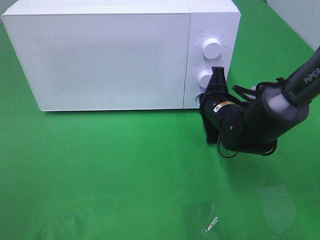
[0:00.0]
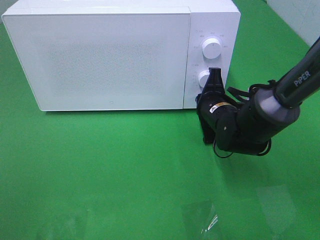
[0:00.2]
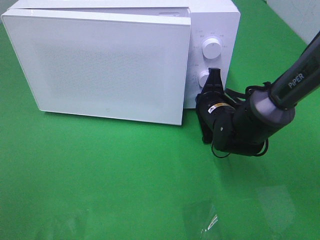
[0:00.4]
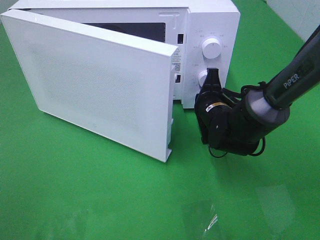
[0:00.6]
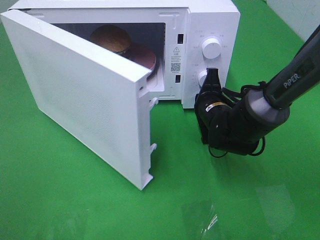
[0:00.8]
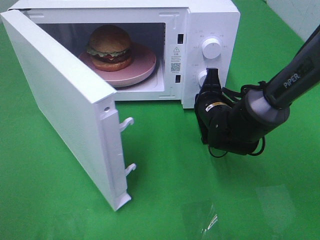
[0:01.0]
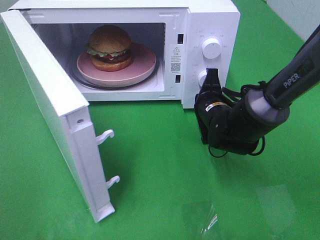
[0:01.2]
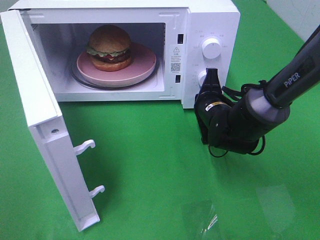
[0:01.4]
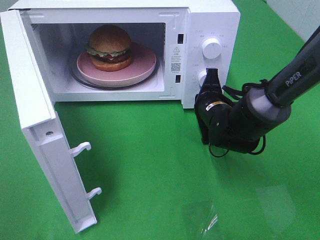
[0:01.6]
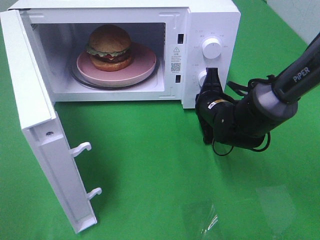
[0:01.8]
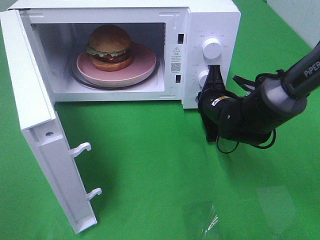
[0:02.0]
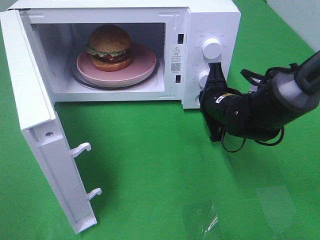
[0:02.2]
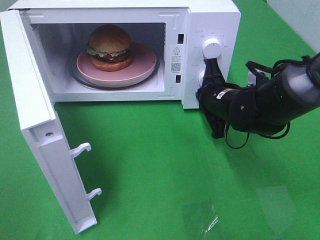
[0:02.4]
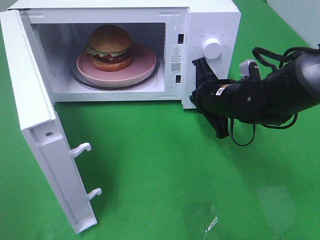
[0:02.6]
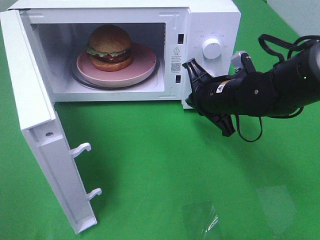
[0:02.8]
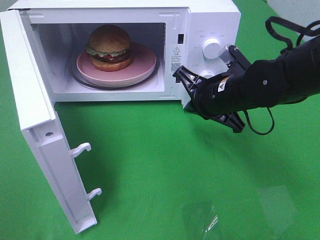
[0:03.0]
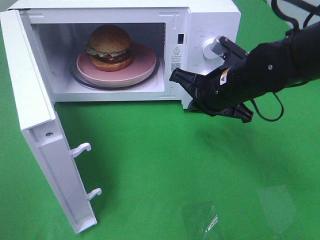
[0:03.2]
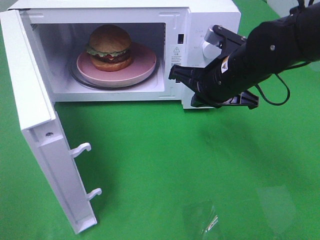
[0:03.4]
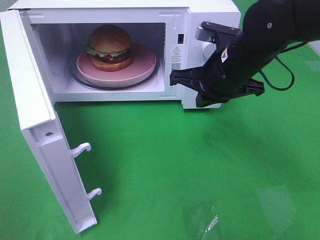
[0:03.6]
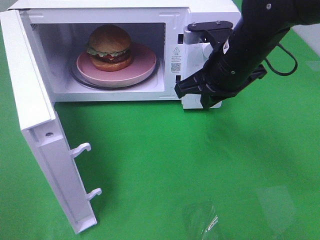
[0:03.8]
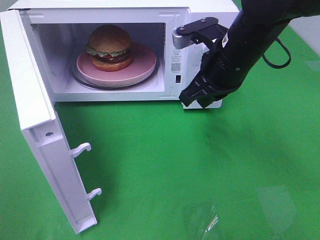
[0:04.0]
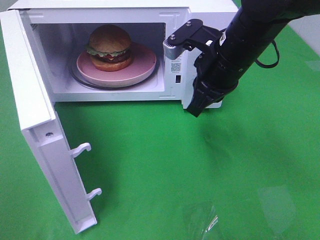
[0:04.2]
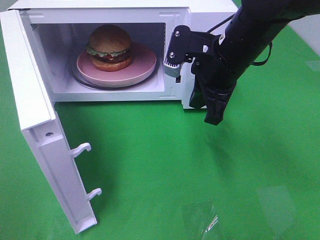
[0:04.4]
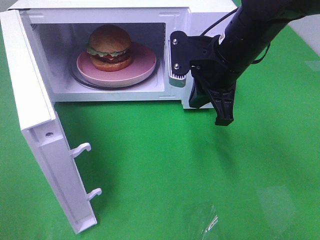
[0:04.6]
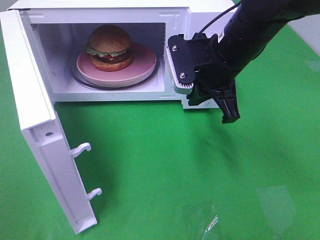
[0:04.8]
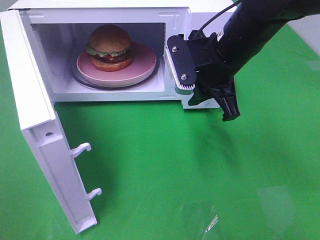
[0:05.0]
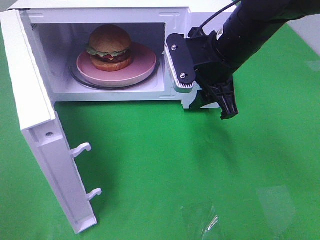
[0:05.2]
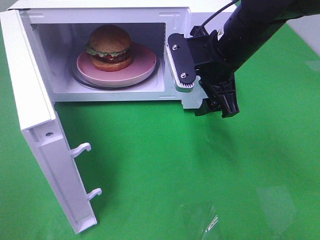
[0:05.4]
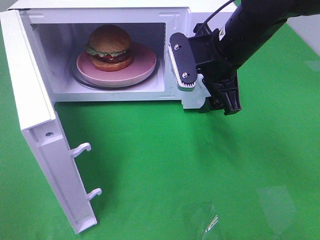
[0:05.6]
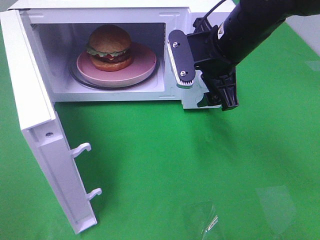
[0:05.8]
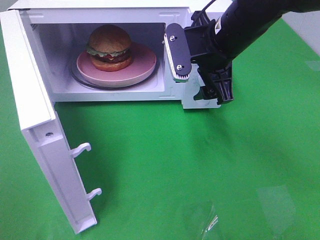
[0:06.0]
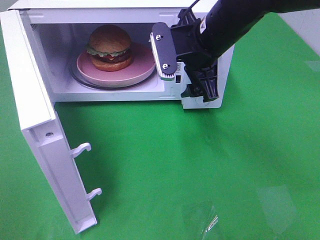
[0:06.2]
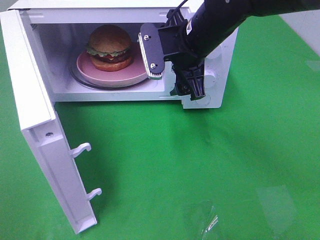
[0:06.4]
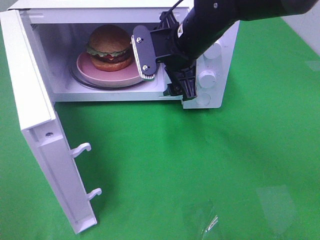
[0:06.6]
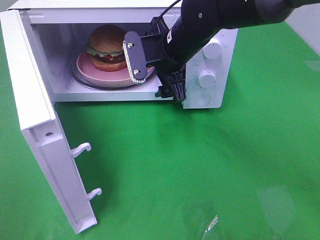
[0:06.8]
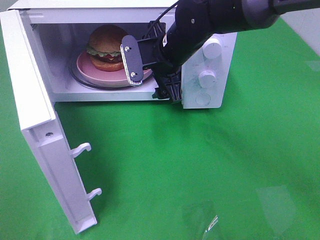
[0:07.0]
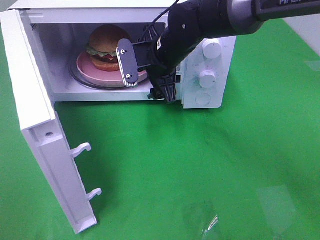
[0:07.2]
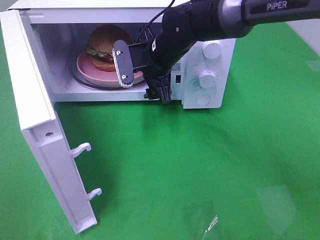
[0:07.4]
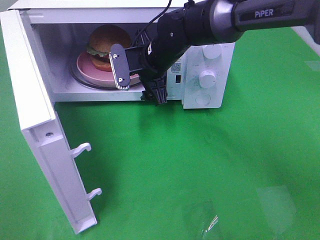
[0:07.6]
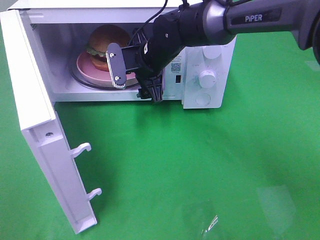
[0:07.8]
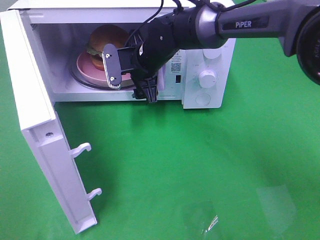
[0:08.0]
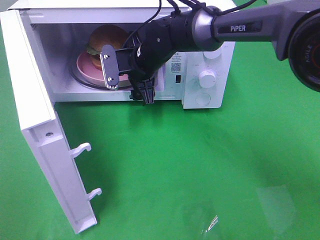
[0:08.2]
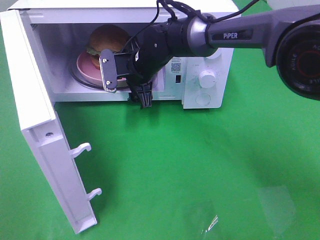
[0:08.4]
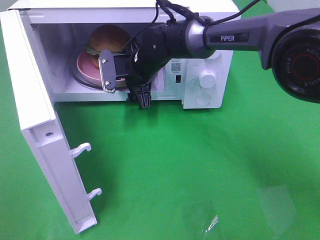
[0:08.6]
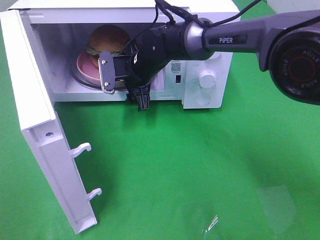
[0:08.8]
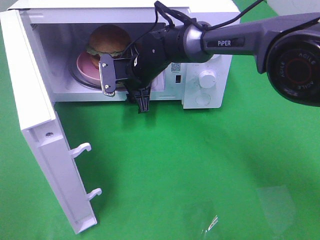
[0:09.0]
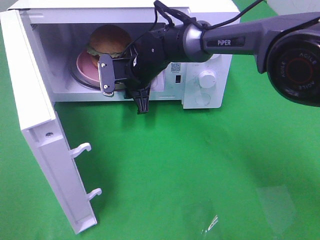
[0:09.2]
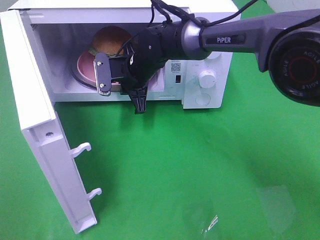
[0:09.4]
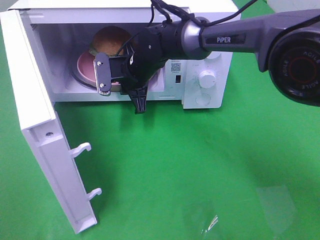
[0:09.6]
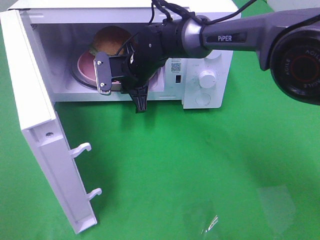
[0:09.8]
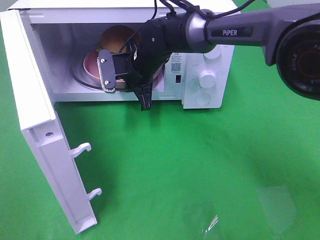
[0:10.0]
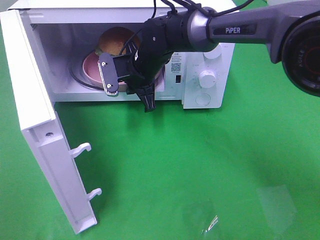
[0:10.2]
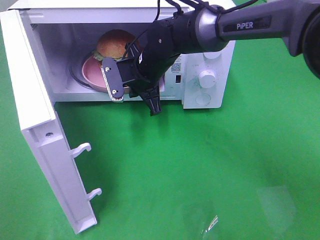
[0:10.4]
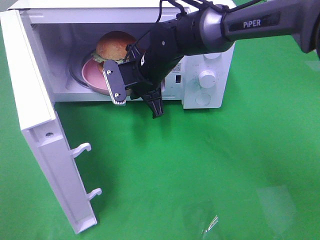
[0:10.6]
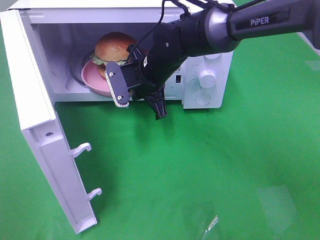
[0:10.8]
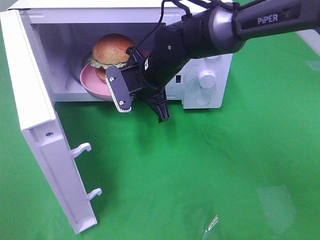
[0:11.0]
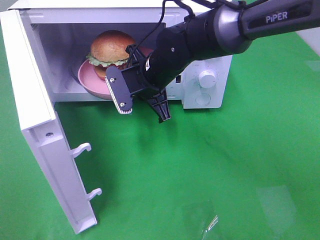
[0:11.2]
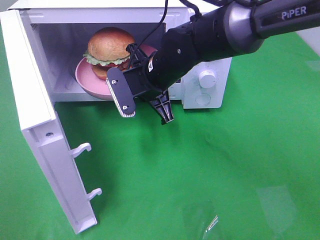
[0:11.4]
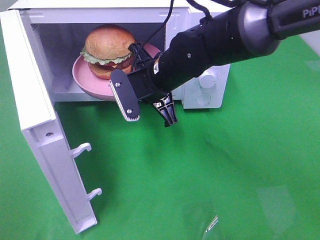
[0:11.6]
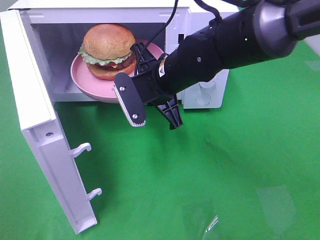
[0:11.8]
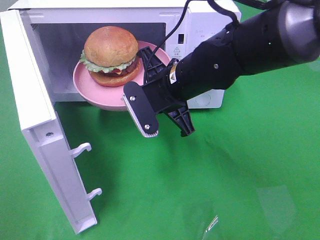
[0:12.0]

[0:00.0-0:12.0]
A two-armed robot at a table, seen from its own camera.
Task of the whole recording: Heat the burger.
Step, 0:00.0 to 0:09.2: Right hand: grab the plate with the hamburger.
0:01.6 to 0:03.0: The right gripper travels upward by approximately 5 cm.
0:03.0 to 0:04.4: The right gripper goes some 5 cm upward.
0:04.4 to 0:06.0: The right gripper opens up.
0:06.0 to 0:07.6: The right gripper travels to the left, forward and downward by approximately 15 cm.
0:07.6 to 0:09.0: The right gripper changes place by about 5 cm.
0:09.0 to 0:10.4: The right gripper closes its fingers.
0:10.4 to 0:12.0: The right gripper goes approximately 10 cm backward and to the right.

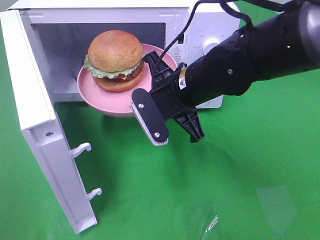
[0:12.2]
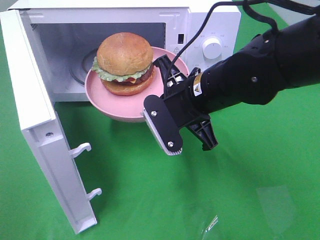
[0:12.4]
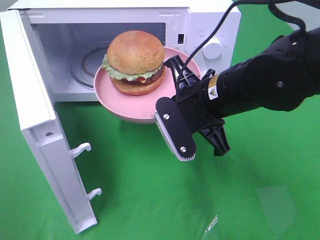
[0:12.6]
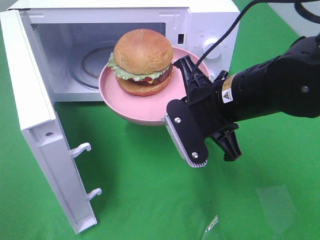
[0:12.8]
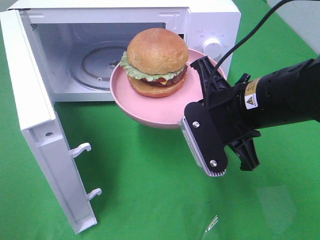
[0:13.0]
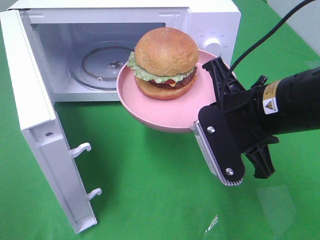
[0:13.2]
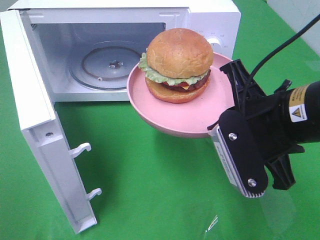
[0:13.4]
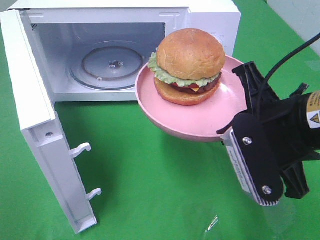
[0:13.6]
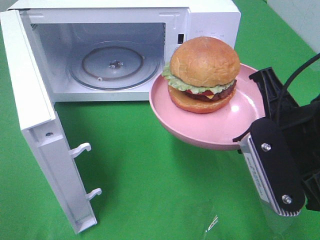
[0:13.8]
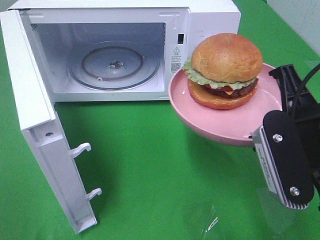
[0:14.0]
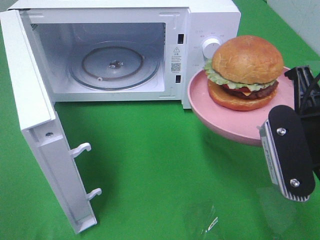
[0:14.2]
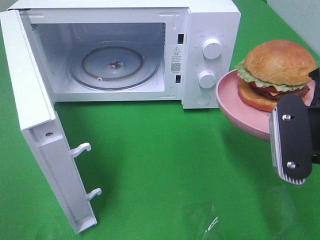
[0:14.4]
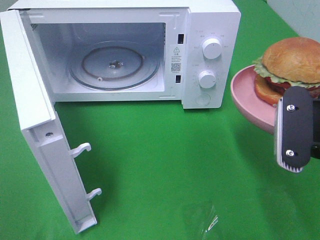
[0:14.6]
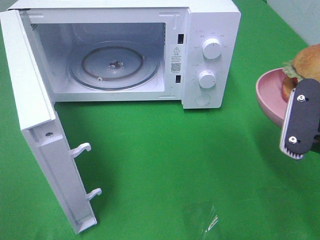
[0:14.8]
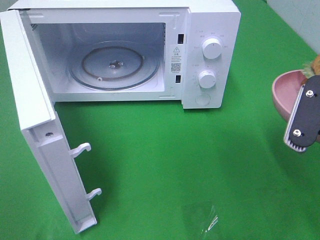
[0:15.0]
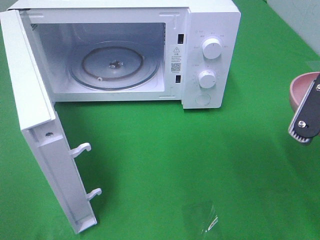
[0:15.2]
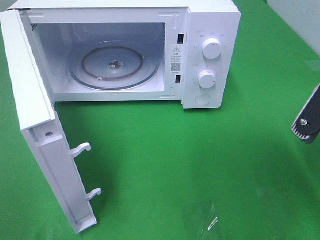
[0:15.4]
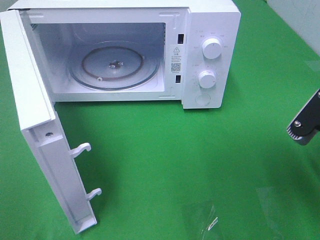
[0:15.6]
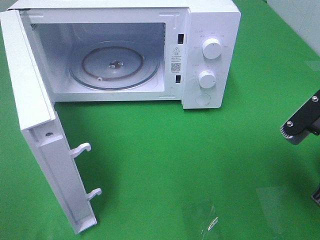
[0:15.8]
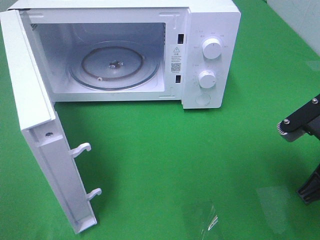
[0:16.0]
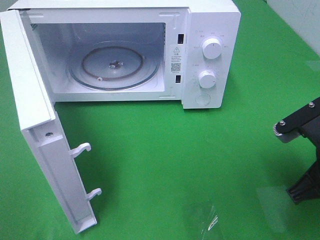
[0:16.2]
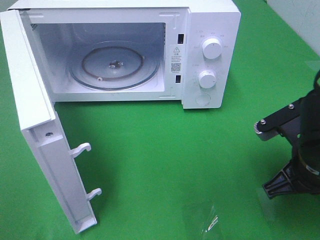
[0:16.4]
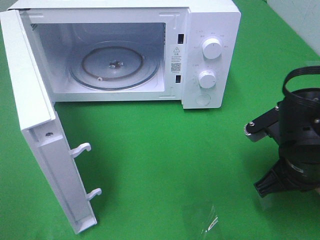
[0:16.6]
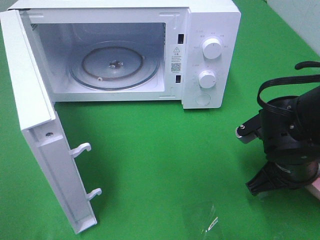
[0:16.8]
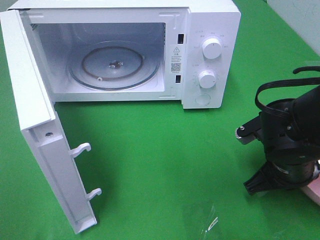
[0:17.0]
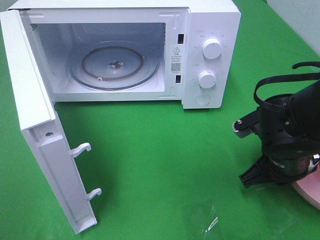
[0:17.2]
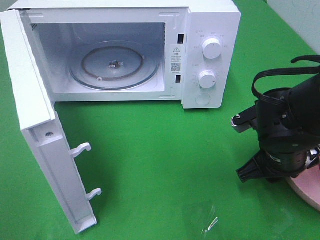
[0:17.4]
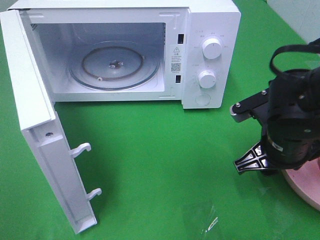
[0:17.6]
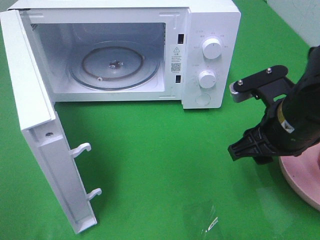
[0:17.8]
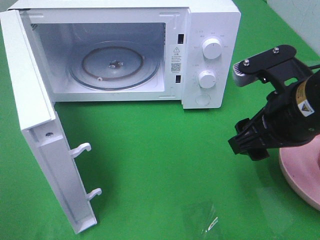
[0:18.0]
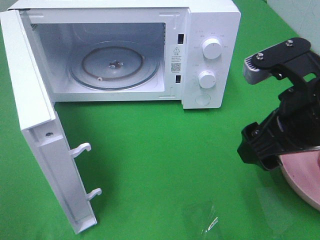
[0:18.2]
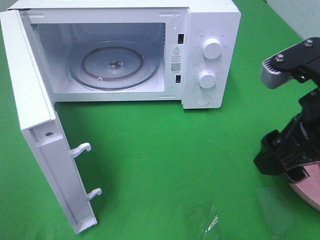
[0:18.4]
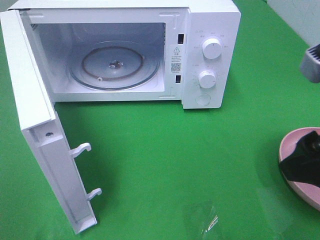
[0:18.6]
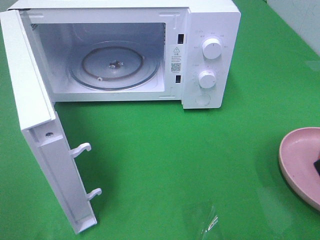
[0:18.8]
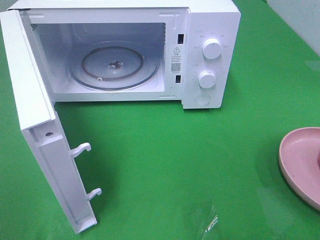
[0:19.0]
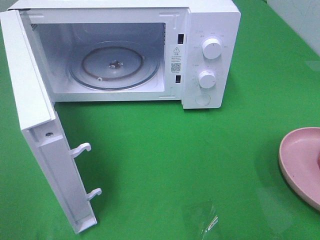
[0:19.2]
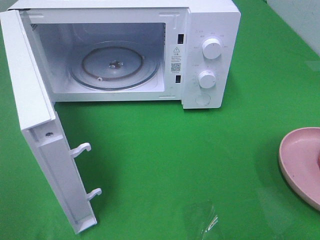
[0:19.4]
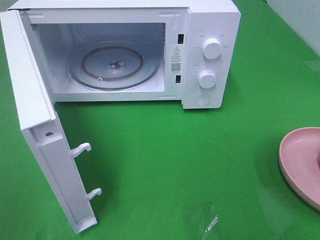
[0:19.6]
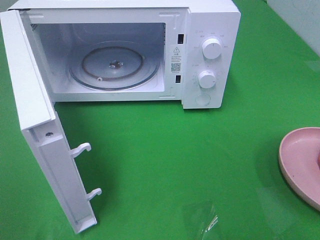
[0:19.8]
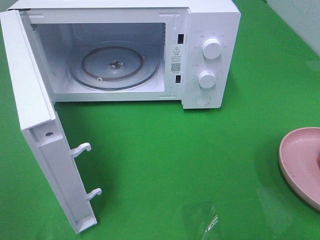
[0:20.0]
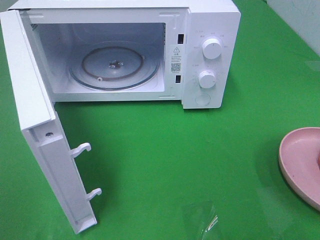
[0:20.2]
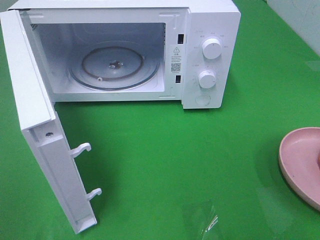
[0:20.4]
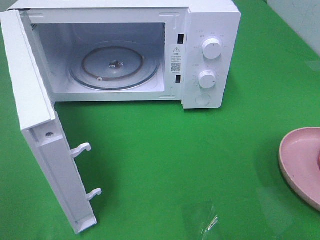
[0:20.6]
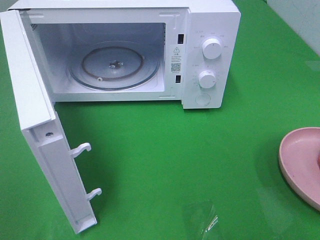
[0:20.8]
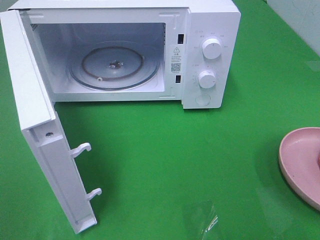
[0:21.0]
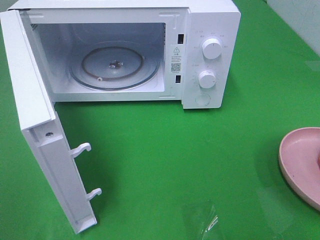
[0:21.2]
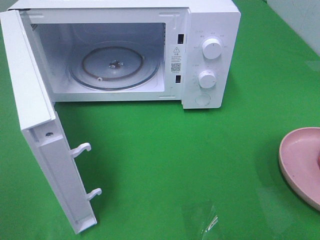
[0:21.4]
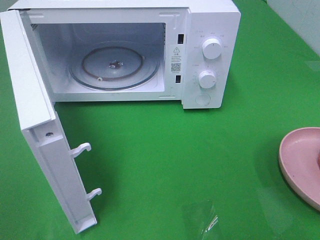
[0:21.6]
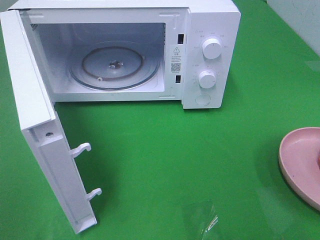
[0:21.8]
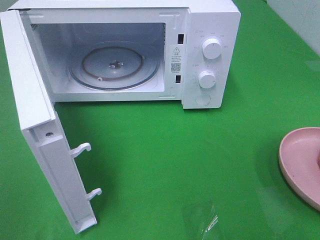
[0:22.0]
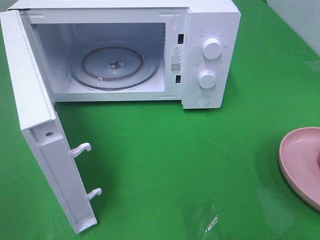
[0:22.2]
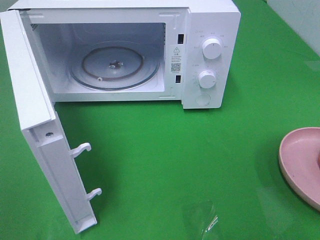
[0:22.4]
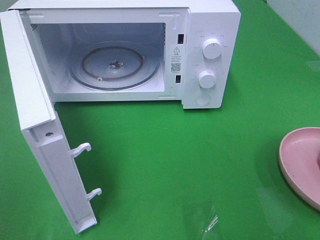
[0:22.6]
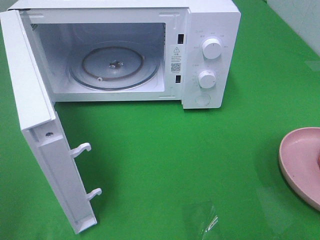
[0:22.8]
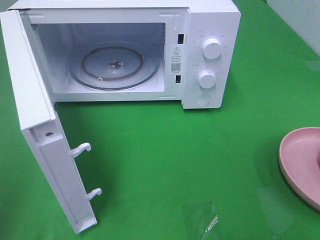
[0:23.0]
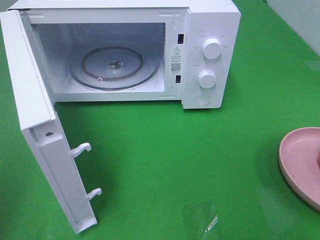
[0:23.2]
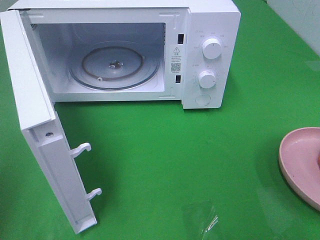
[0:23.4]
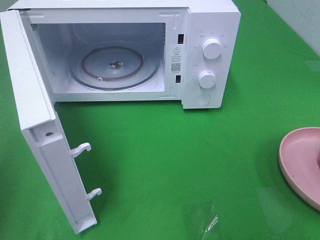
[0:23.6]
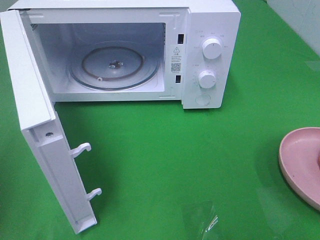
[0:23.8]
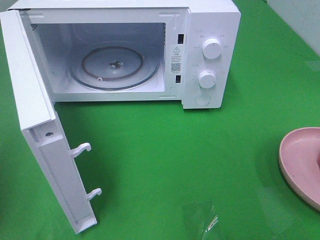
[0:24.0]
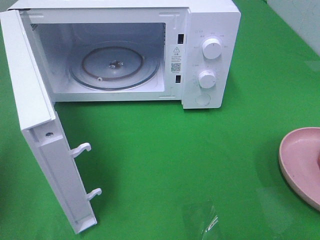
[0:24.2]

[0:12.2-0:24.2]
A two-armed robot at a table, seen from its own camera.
Task of the whole recording: Heat the burger.
Step, 0:12.2 to 0:17.2: Right hand: place the plate on the table.
0:12.2 to 0:13.8: The right gripper heads backward, to the right and upward, covering roughly 20 cm.
0:13.8 to 0:15.2: The right gripper moves to the right, about 5 cm.
0:15.2 to 0:16.6: The right gripper moves downward and forward, some 10 cm.
0:16.6 to 0:18.2: The right gripper is displaced upward by roughly 10 cm, and opens its fingers.
0:18.2 to 0:19.8: The right gripper shifts approximately 25 cm backward, to the right and upward.
